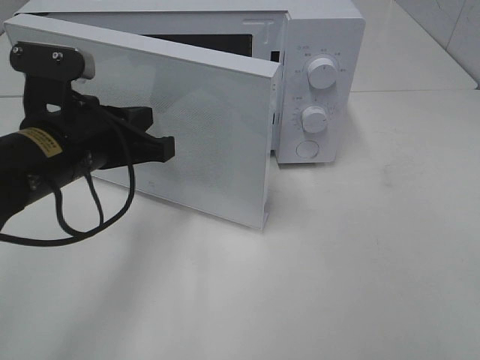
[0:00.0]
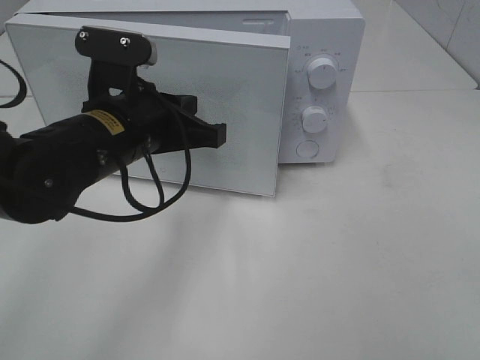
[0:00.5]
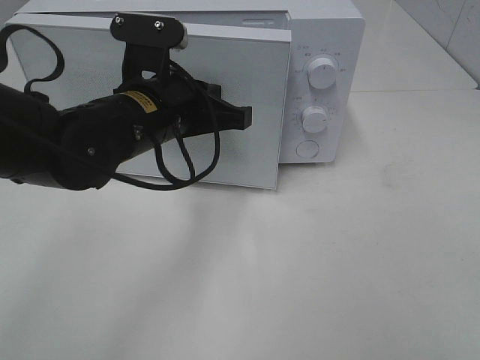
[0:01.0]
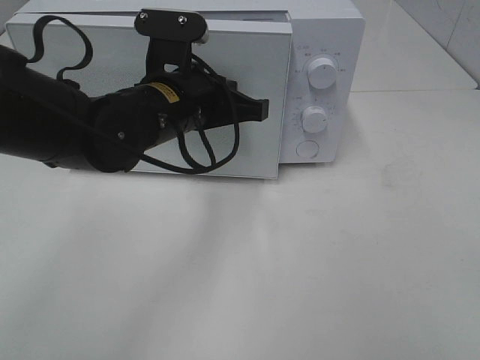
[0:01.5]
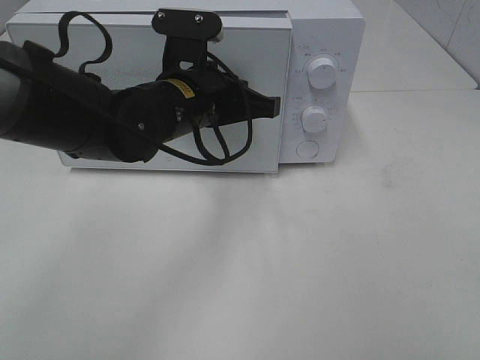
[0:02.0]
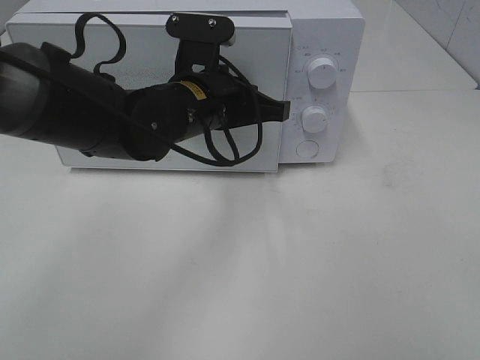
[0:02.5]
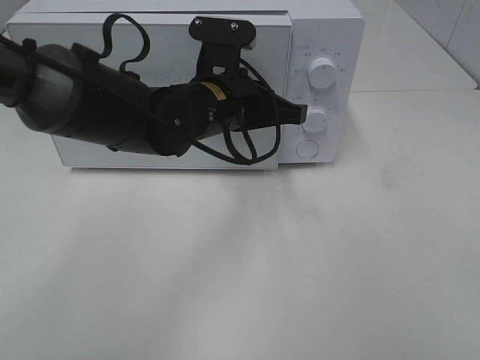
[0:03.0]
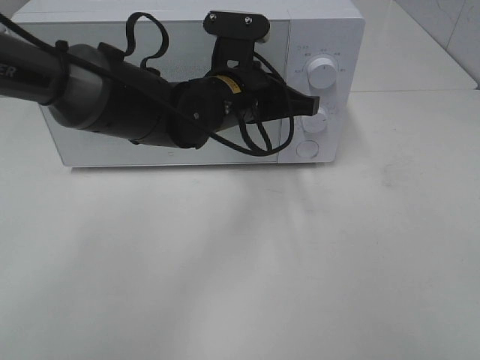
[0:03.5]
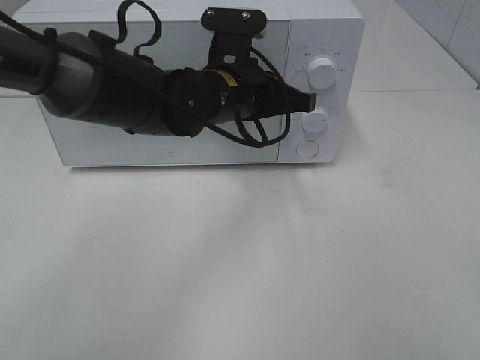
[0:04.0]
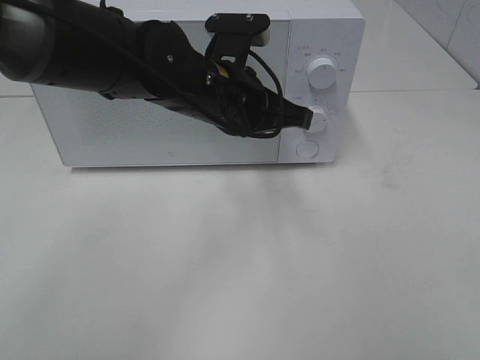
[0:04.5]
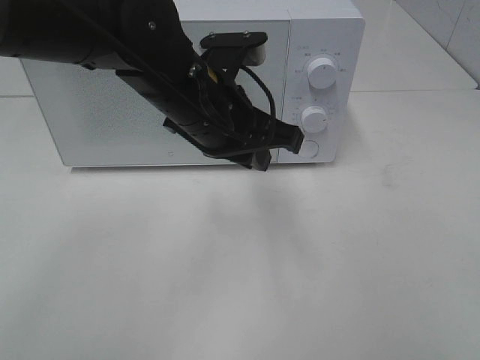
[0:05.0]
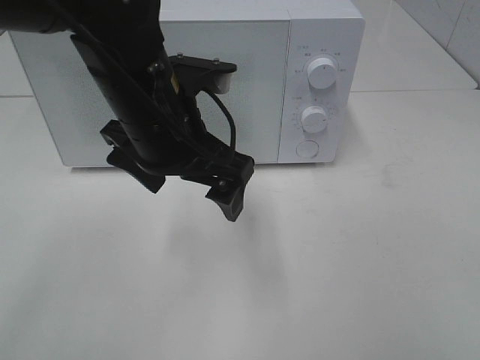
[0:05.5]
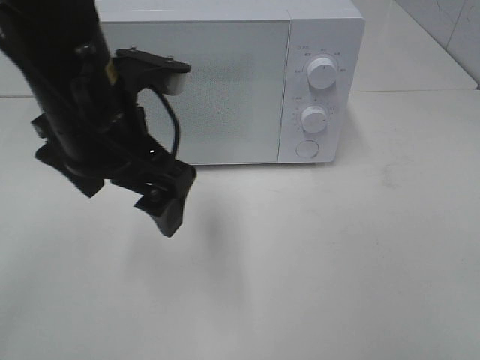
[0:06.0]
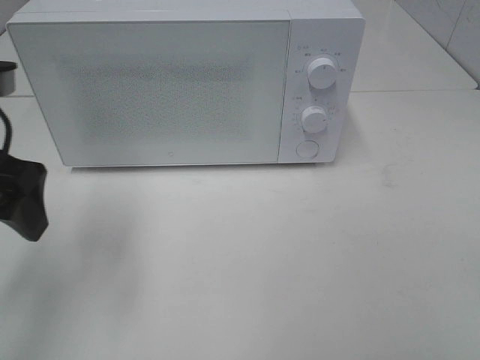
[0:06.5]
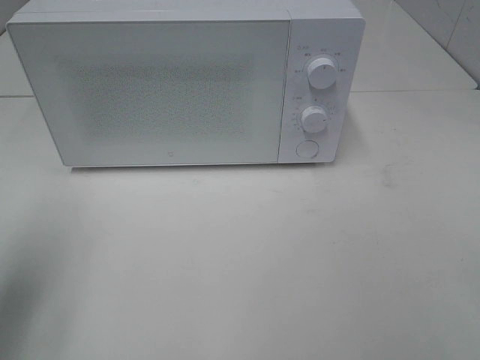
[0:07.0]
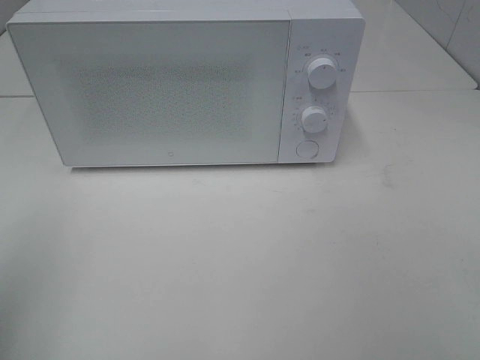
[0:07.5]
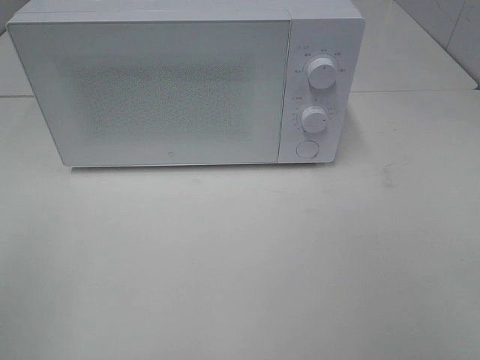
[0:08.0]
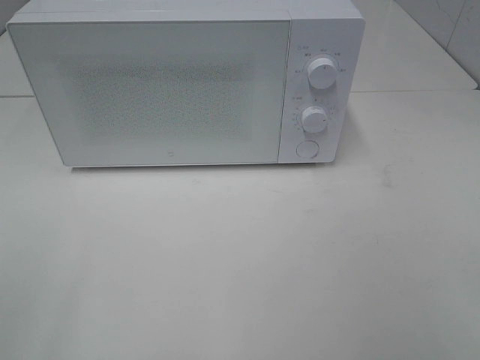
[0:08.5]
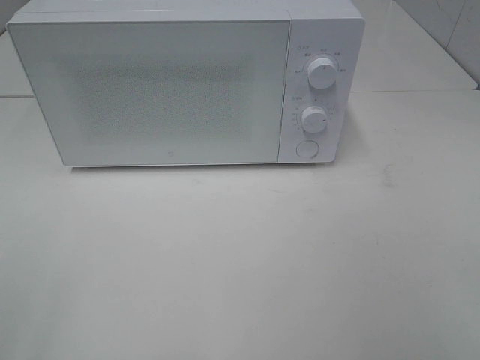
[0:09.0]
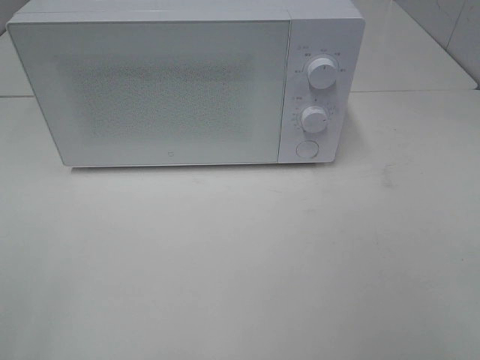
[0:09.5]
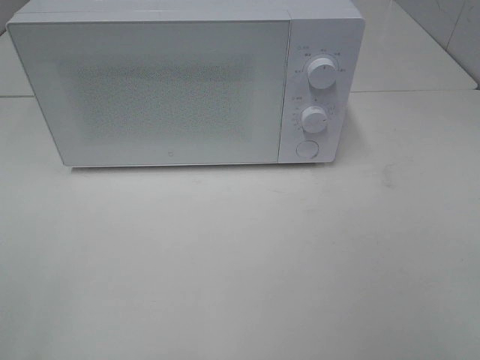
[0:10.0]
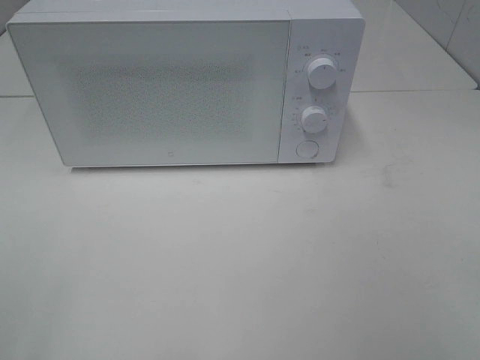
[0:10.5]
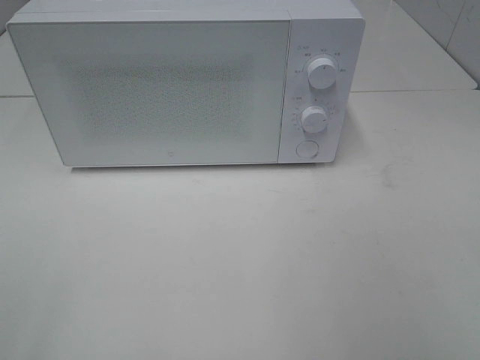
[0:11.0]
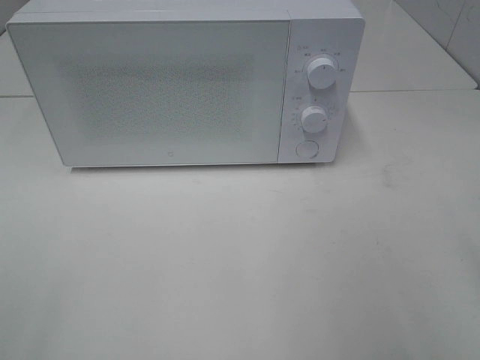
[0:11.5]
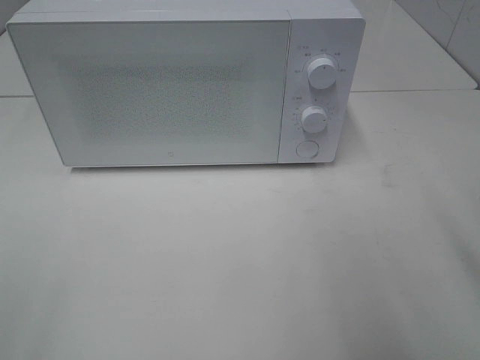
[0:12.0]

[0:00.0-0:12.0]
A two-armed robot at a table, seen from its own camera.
Task of the whole recording: Heat the burger.
Step, 0:00.0 to 0:04.0: Left hand: close the microwave door.
0:00.0 to 0:02.0: The left gripper travels to the right and forward by some 10 cm.
0:02.0 to 0:04.0: The grippers stay close to where they were, moving slightly.
0:04.0 to 0:06.0: The left gripper travels backward, to the left and upward by about 15 cm, and opens up.
0:06.0 to 0:08.0: The left gripper heads to the left and backward, covering approximately 30 cm.

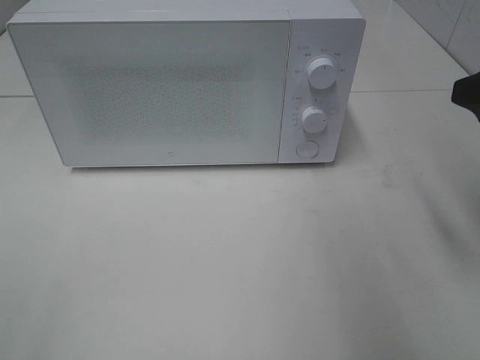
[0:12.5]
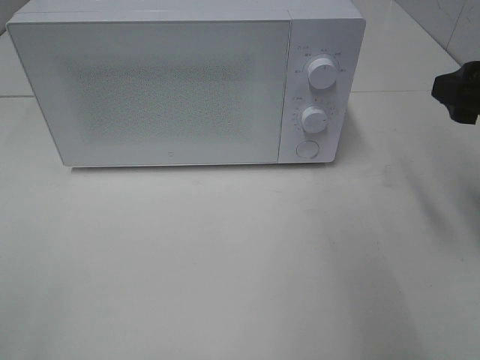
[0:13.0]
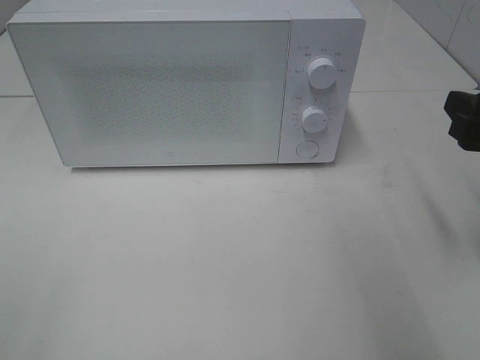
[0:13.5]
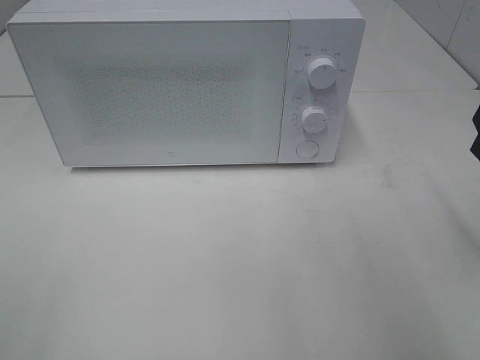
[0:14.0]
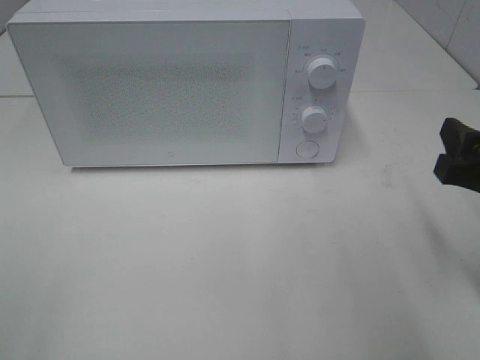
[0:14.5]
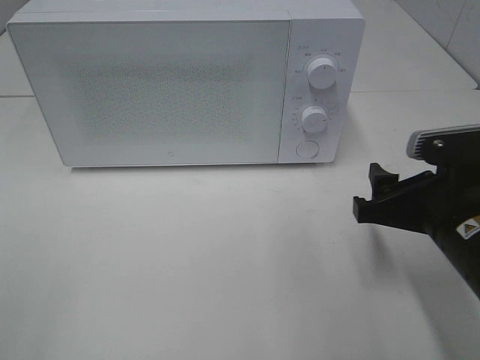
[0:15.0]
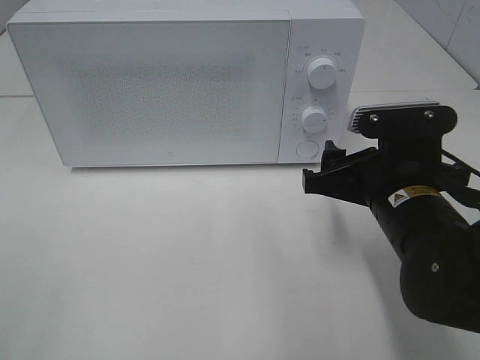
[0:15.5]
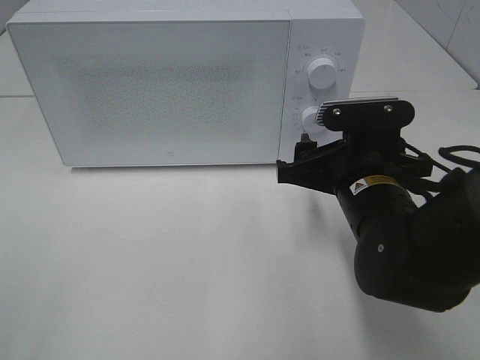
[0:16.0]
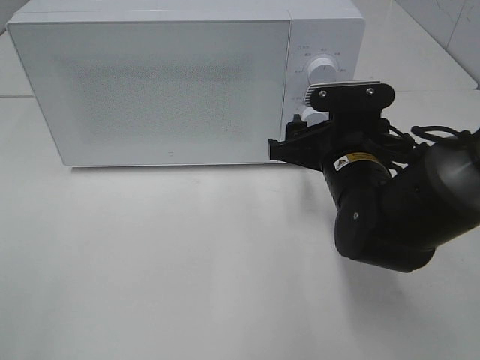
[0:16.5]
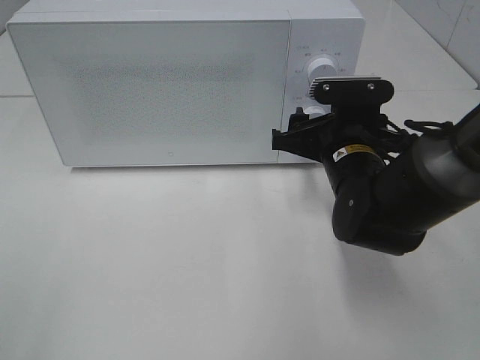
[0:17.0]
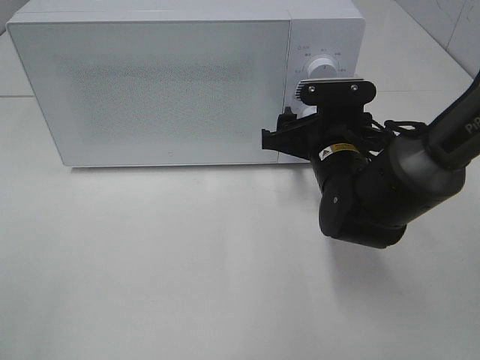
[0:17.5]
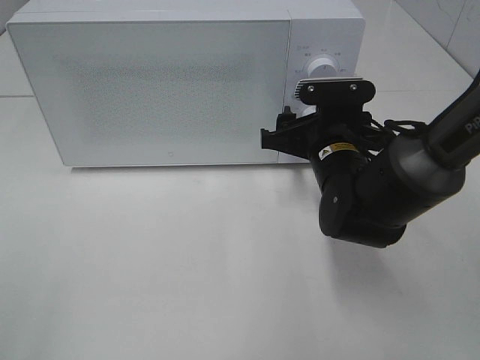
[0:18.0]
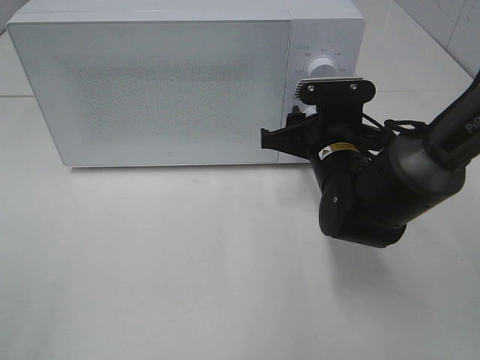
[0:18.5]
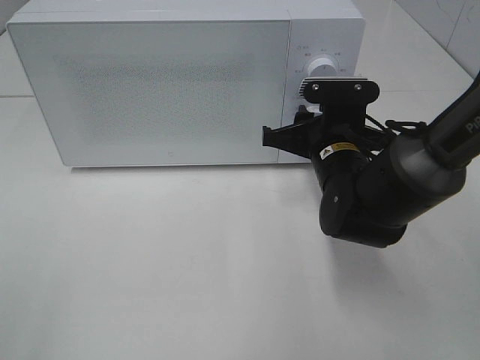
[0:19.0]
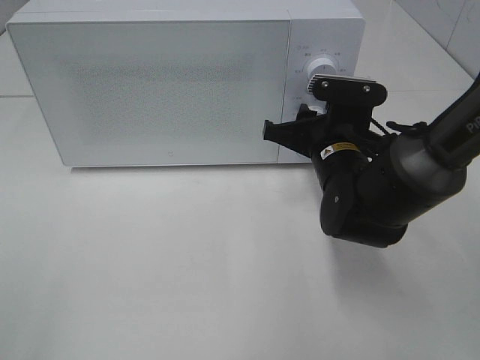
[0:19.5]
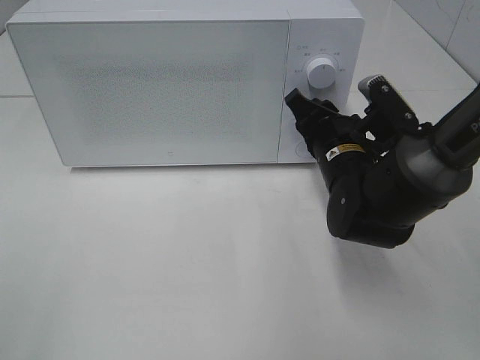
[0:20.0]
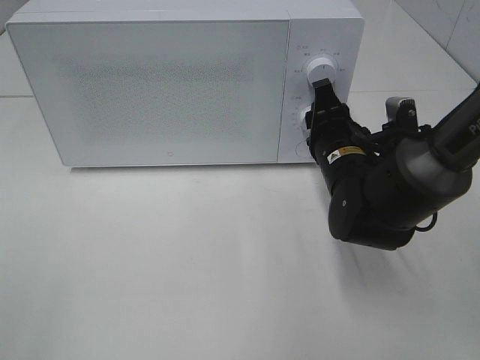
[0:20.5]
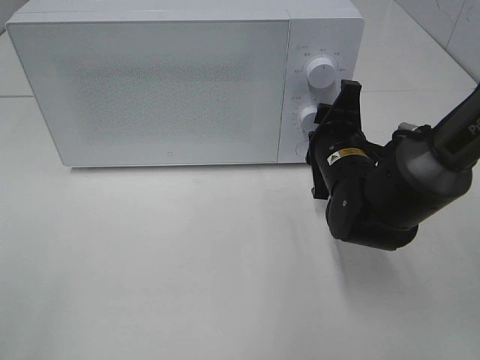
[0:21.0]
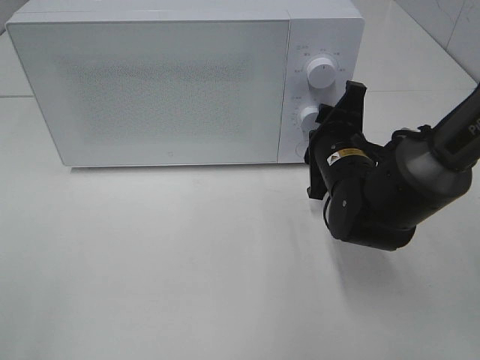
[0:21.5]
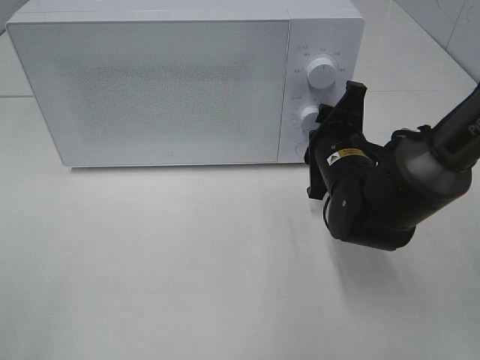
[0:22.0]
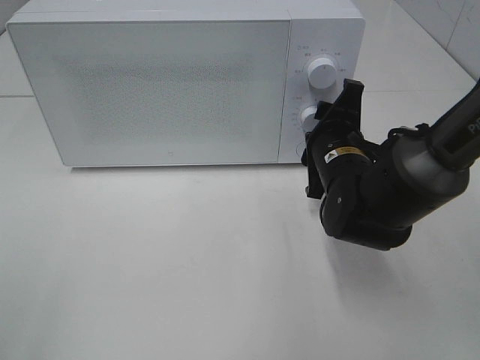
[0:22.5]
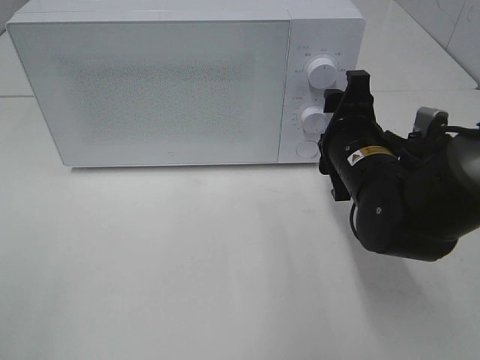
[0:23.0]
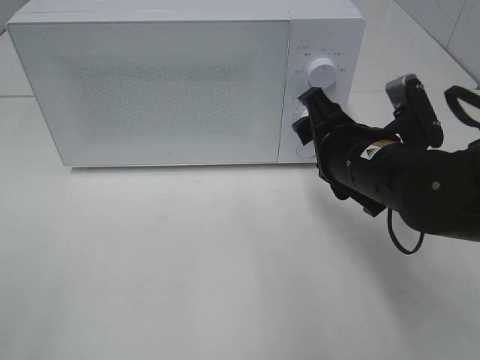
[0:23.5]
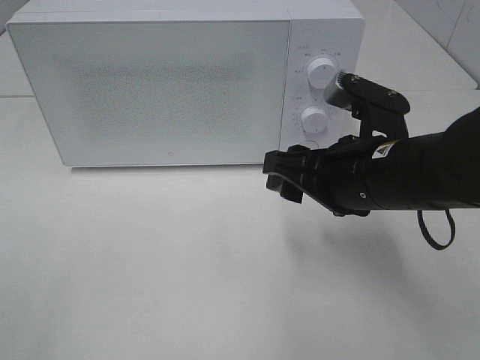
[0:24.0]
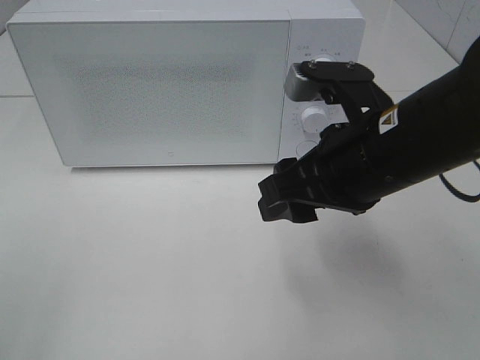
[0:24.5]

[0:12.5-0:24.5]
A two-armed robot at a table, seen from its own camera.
Task of the whole recording: Heat the burger.
Step, 0:12.5 to 0:22.5: Right hand: twist timer button.
0:12.5 to 0:14.5: The right gripper travels downward by about 10 cm.
0:14.5 to 0:16.5: The right gripper goes about 20 cm to the left, forward and downward.
0:16.5 to 0:18.5: The grippers stay close to where they were, moving slightly.
0:22.5 to 0:24.5: The right gripper is displaced upward and backward by approximately 15 cm.

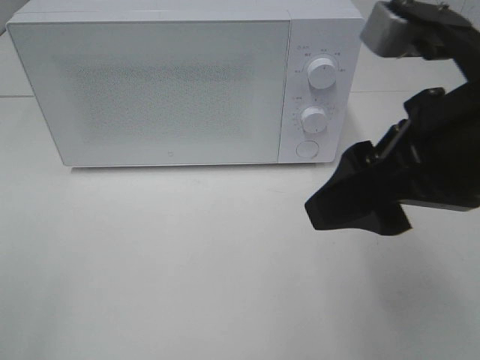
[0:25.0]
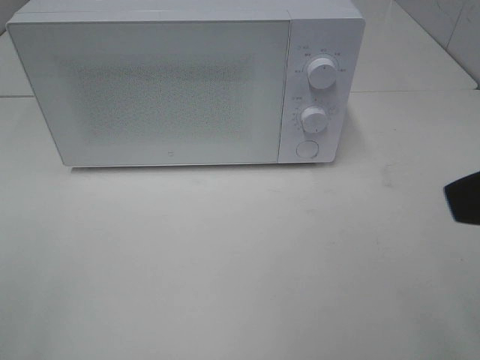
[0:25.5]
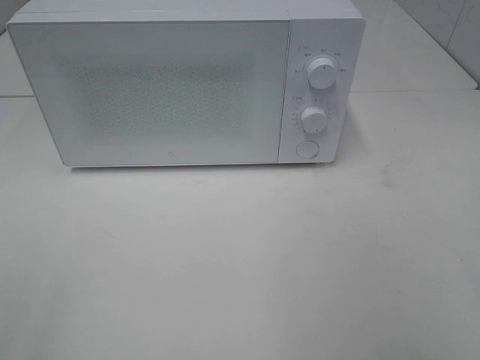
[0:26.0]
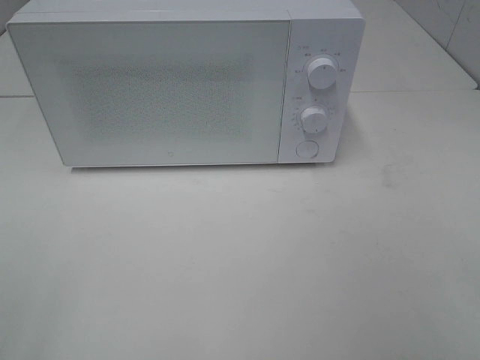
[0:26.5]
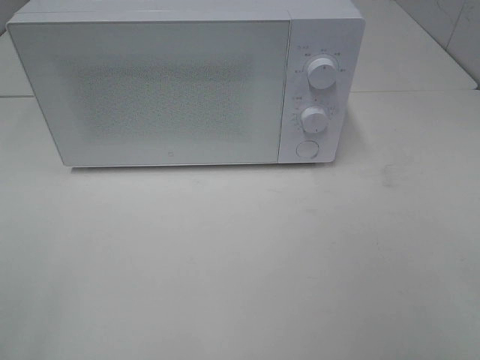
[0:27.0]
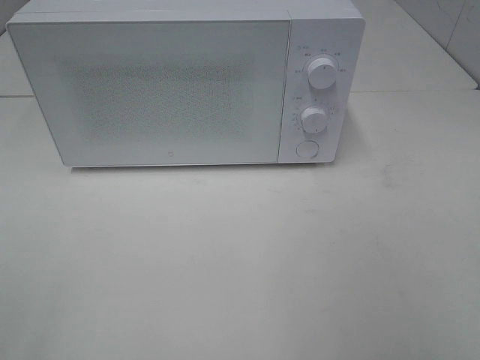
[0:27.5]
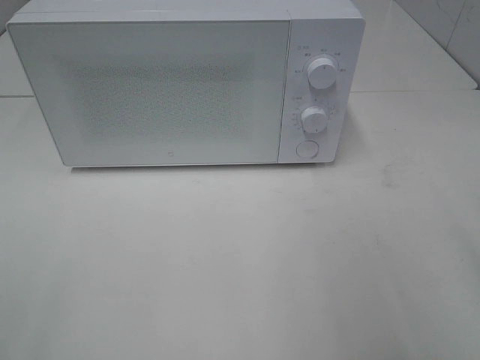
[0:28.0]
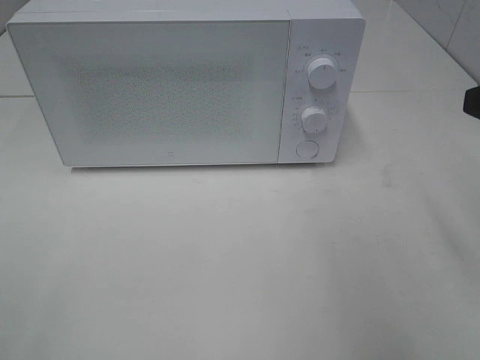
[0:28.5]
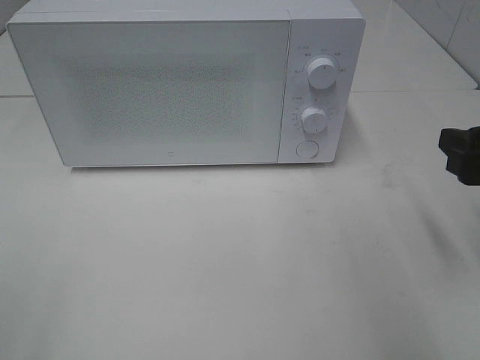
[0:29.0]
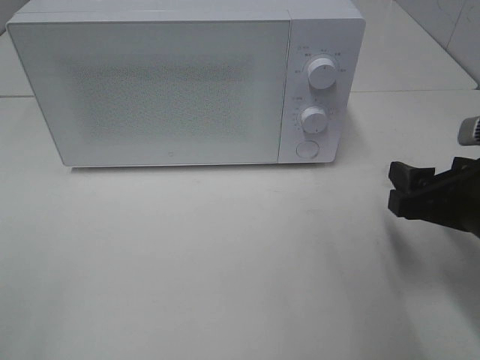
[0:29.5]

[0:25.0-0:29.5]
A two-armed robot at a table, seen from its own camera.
Task of the whole recording: Heat the burger.
0:25.0 to 0:27.0: The right gripper shifts some 20 cm backward and to the right.
0:27.0 to 0:29.5: The right gripper goes approximately 25 cm forward and downward.
